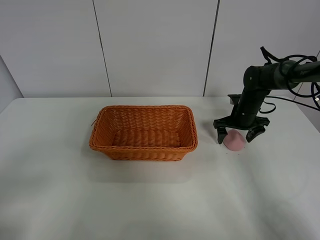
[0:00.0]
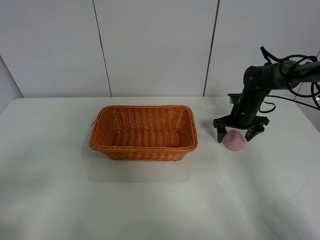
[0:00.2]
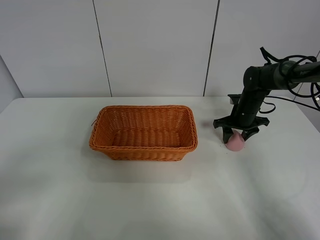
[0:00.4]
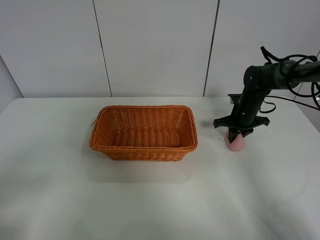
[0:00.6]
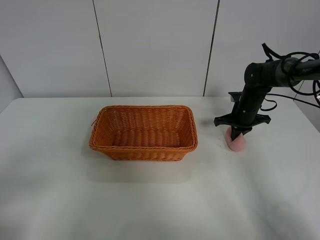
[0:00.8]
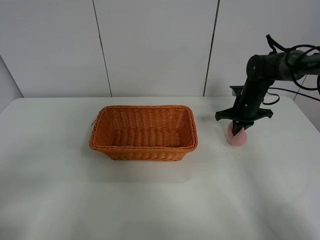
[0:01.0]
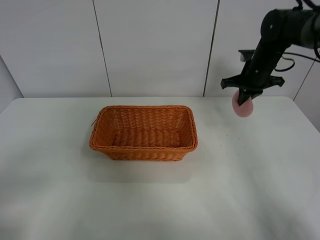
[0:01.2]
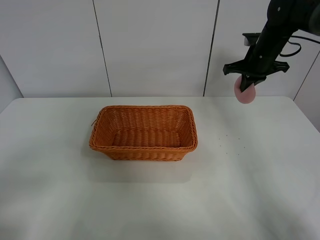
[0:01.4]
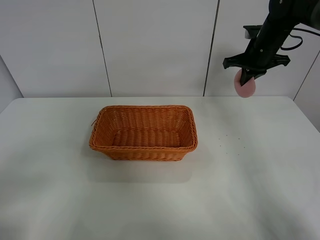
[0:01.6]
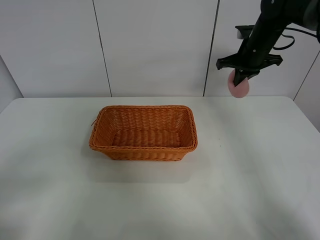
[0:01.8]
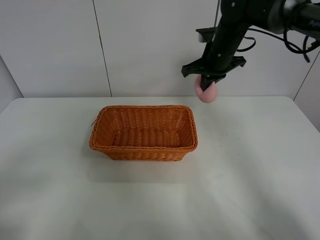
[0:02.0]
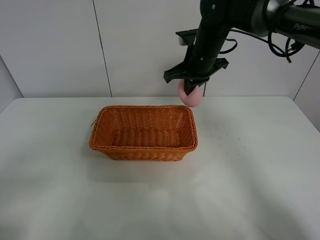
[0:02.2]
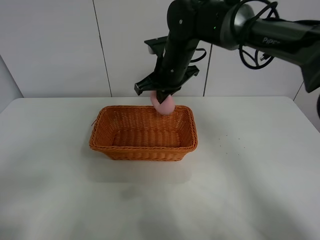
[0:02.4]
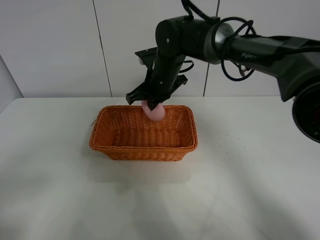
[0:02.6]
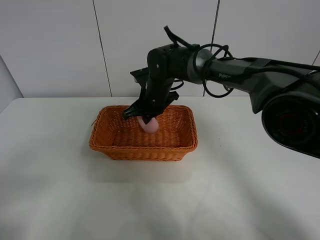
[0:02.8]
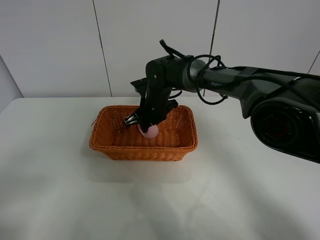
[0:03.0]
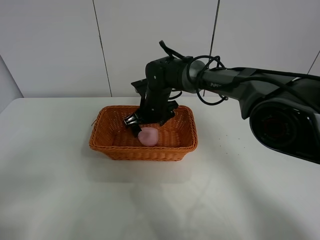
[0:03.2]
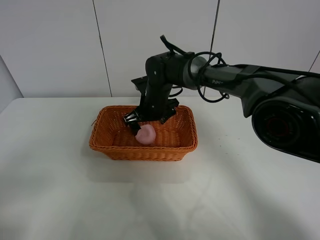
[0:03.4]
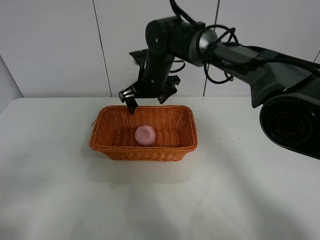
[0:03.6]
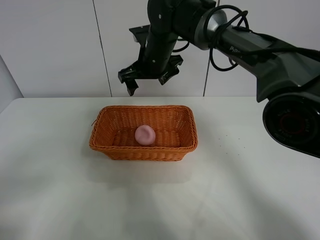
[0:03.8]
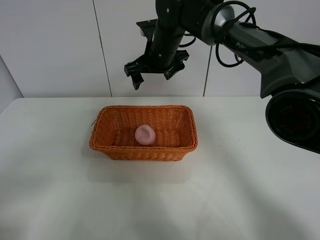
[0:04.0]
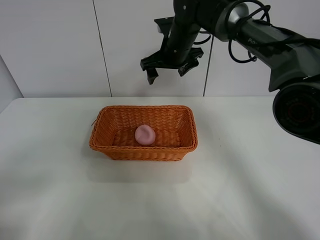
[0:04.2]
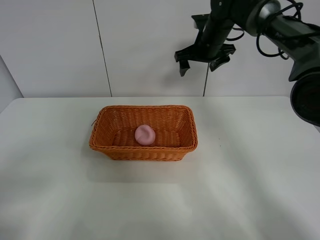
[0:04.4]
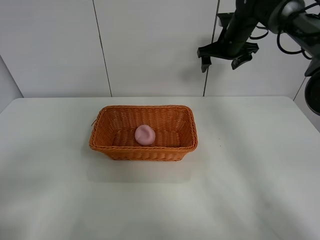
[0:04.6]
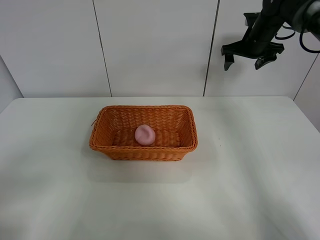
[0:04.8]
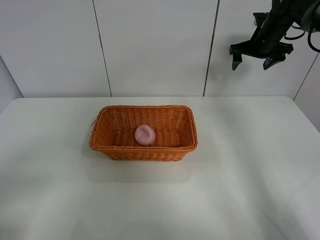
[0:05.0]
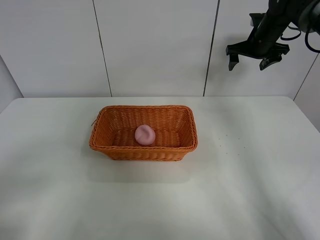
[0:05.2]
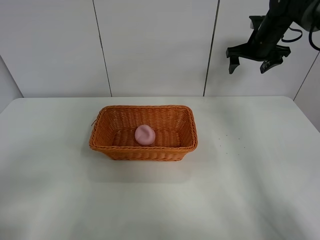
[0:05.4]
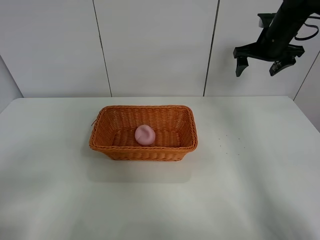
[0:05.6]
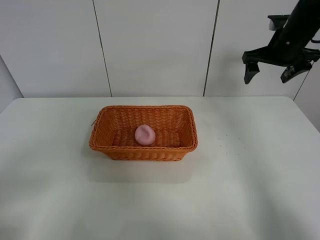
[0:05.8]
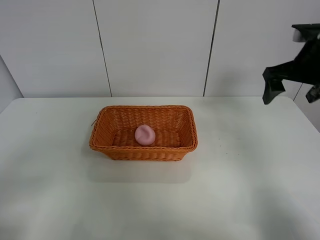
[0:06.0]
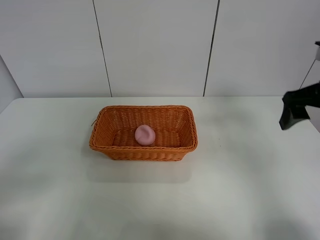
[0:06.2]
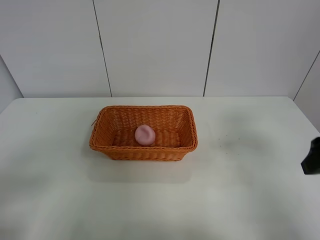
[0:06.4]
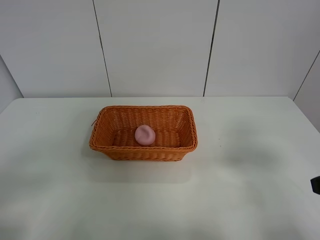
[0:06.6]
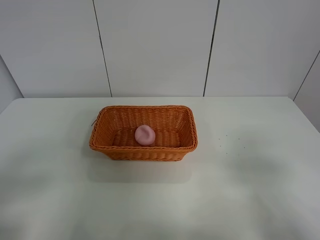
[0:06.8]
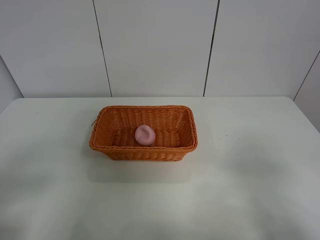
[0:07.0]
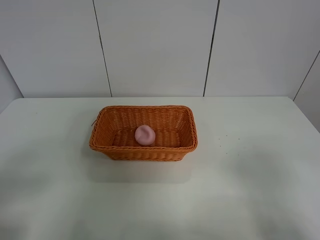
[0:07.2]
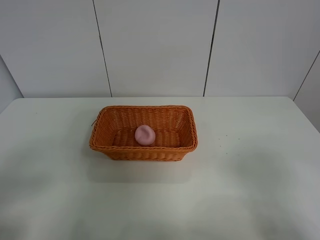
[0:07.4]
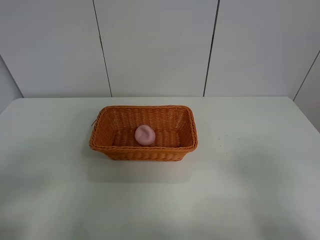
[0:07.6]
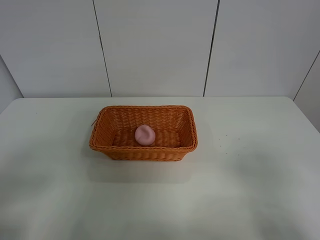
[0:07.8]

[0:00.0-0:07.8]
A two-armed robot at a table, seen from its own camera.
Step, 0:00.8 to 0:03.8: Place the peach in the basket with right gripper.
0:00.0 to 0:01.6: The right gripper travels upward by approximately 15 cm, and closes up.
0:01.6 to 0:03.2: The right gripper shifts roughly 30 cm to the left and downward, and opens up.
0:03.2 to 0:04.6: The right gripper shifts approximately 25 cm to the right, upward and forward.
0:04.6 to 0:06.2: The right gripper heads backward, covering approximately 30 cm.
0:06.2 to 0:07.8: The right gripper moves backward, about 20 cm.
